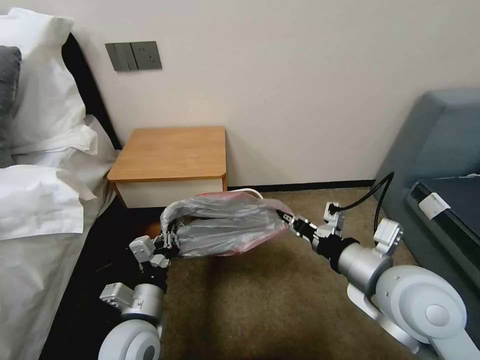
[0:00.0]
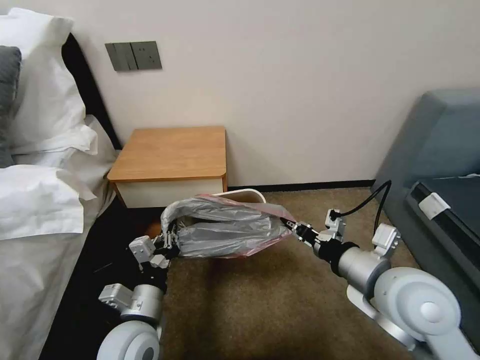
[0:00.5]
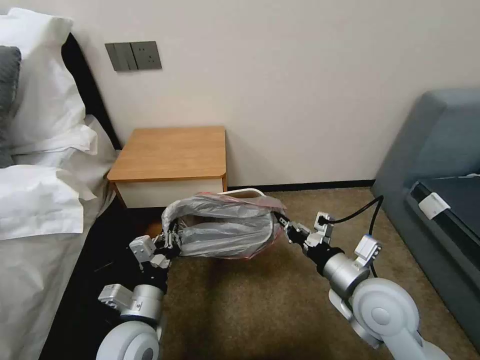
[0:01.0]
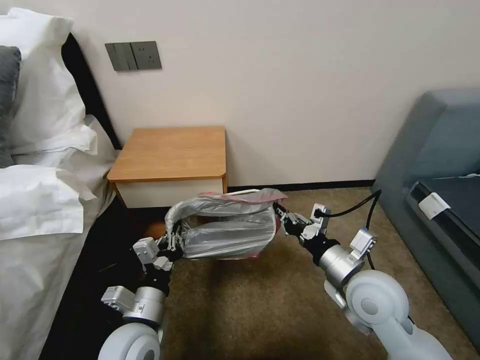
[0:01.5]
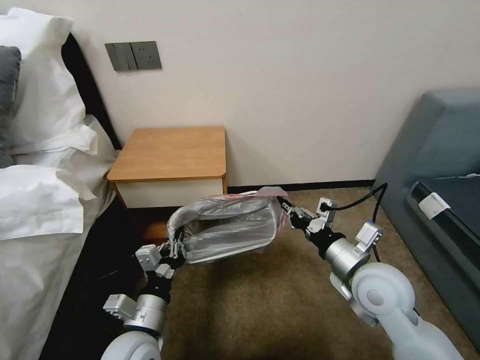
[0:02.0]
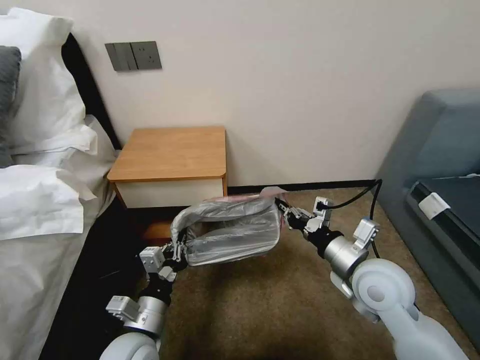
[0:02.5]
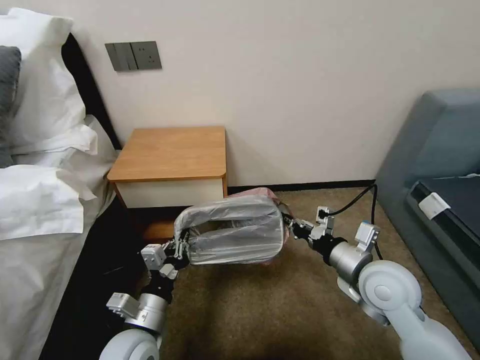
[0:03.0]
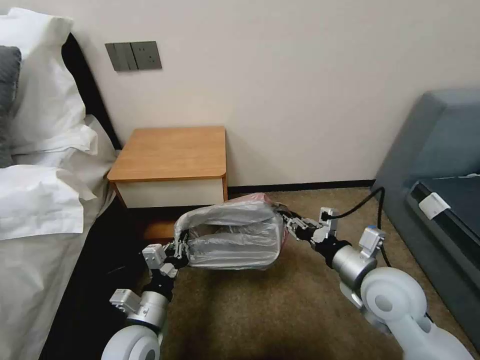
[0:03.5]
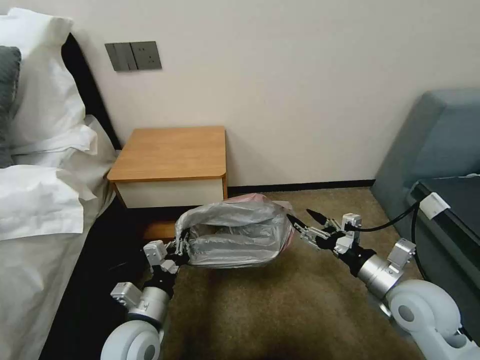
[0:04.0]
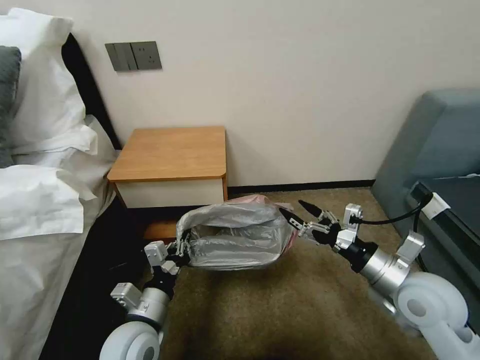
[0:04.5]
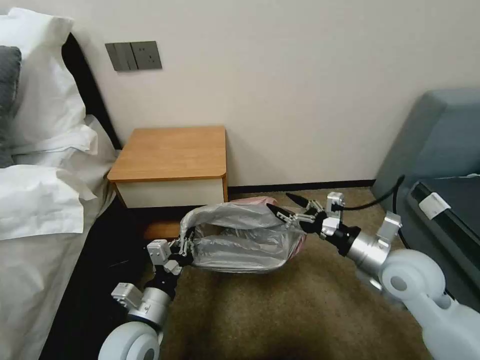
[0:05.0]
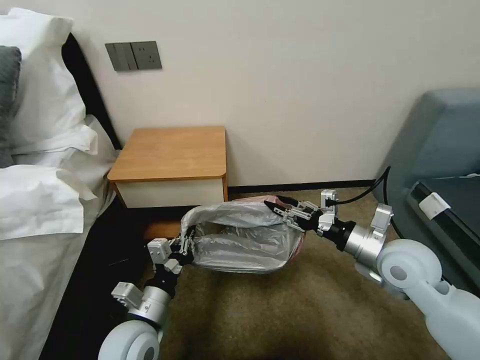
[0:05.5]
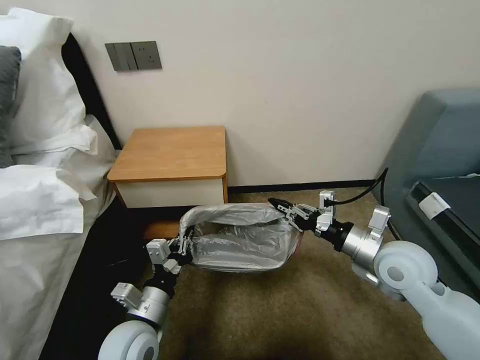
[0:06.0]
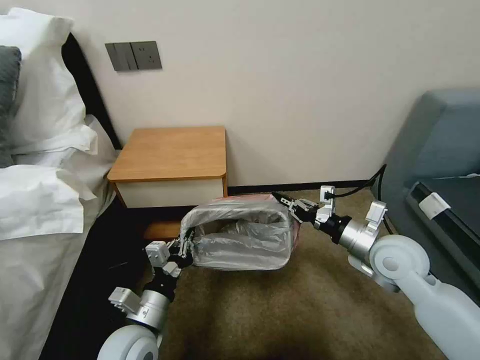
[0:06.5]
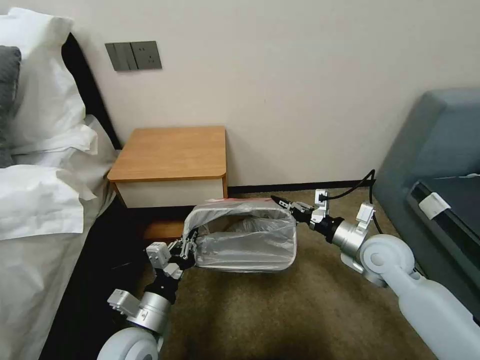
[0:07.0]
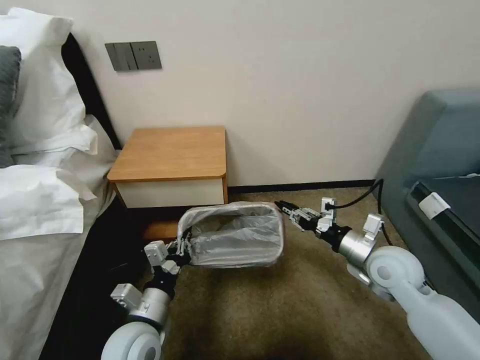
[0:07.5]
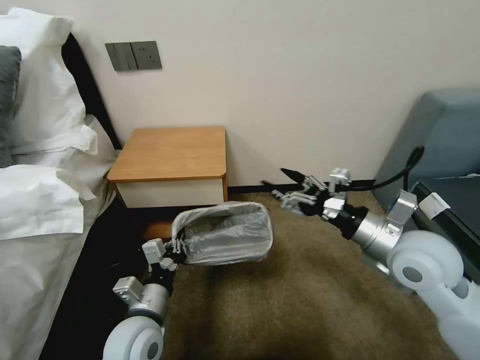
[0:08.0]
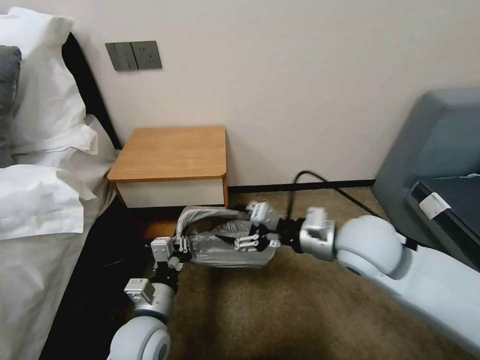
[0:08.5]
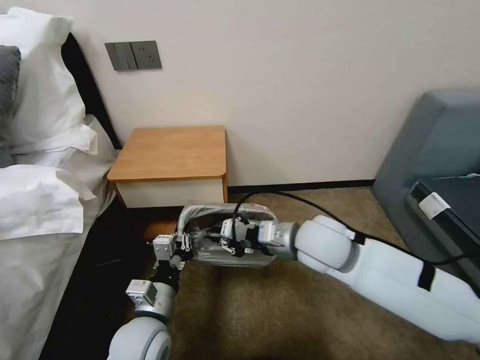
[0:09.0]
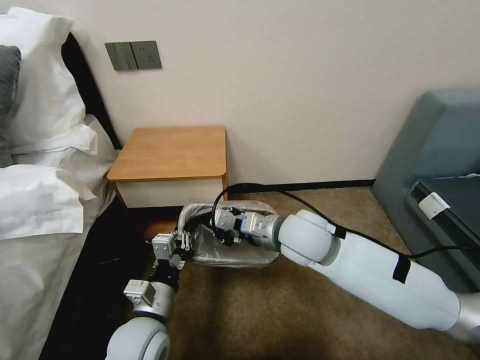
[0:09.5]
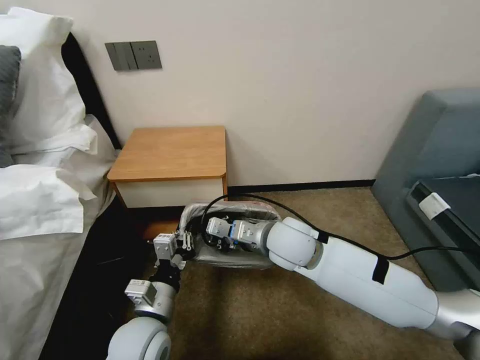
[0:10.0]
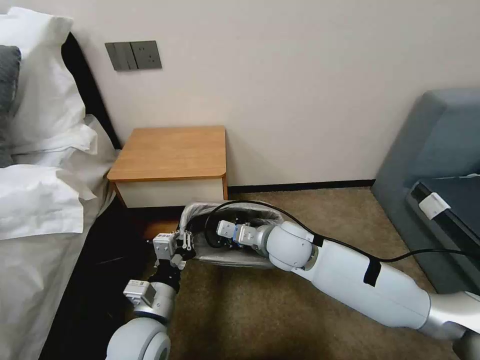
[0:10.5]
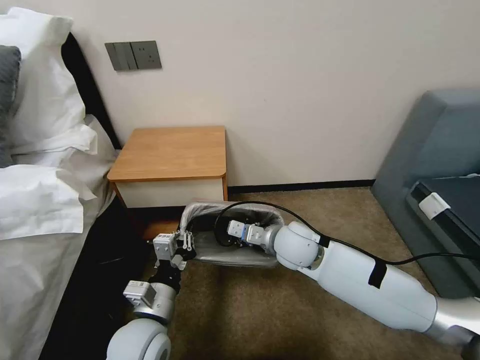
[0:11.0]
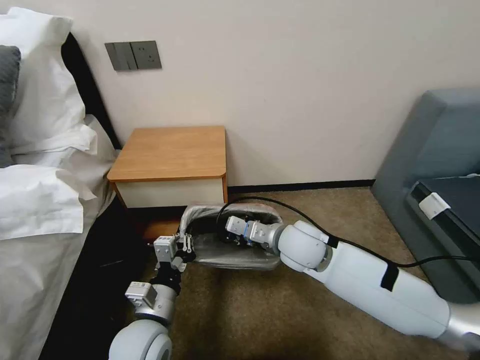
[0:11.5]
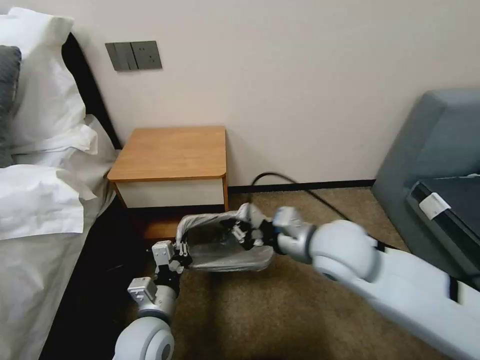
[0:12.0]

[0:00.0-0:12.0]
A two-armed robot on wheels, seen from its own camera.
Task of the whole recording: Pick up the garbage bag from the table and place it over the trash can.
0:00.0 to 0:02.0: The right gripper is displaced downward by some 10 cm.
0:02.0 to 0:04.0: The right gripper is displaced to the right by some 5 cm, and opens its fingers.
0:04.0 to 0:06.0: The right gripper moves forward, about 5 cm, and closes up.
0:06.0 to 0:08.0: The right gripper is displaced upward by about 5 cm, and opens up.
0:08.0 to 0:10.0: The right gripper goes roughly 20 cm to the left, and closes its fingers.
0:10.0 to 0:12.0: The right gripper heads to the right, upward and backward, covering approximately 10 cm.

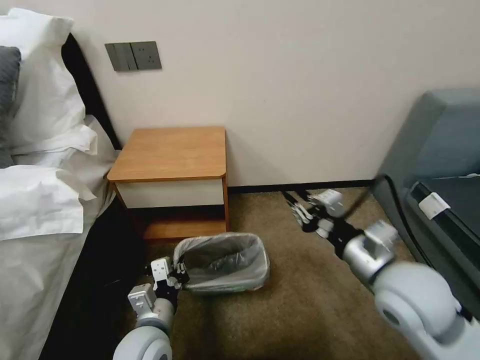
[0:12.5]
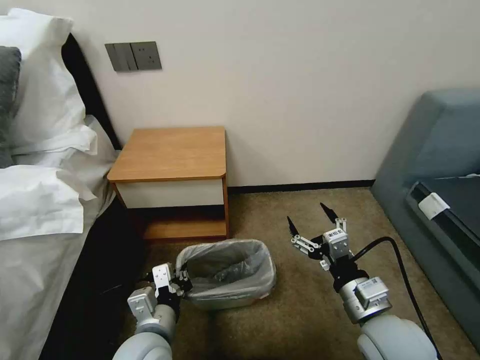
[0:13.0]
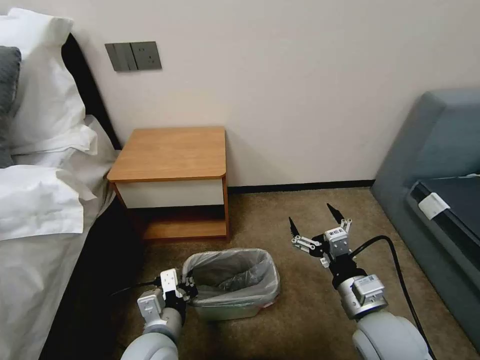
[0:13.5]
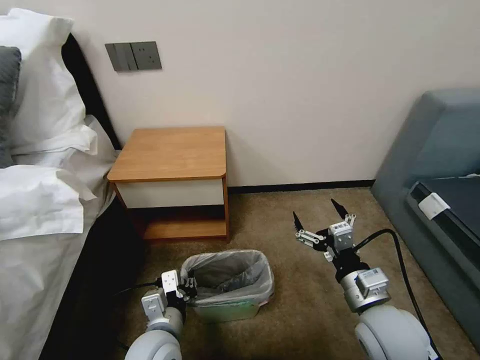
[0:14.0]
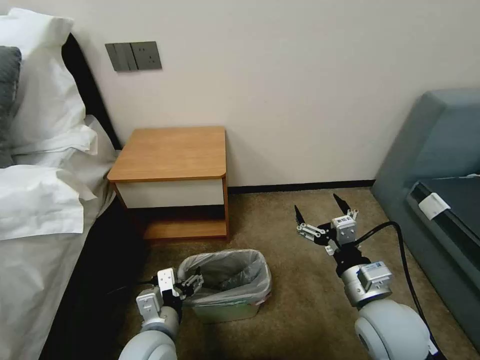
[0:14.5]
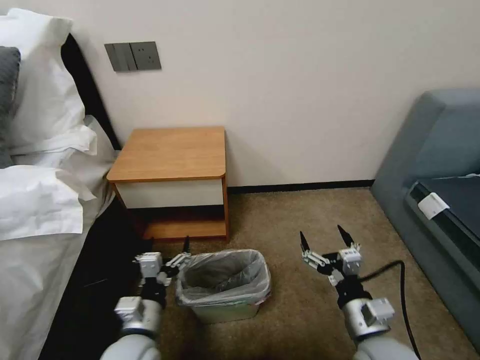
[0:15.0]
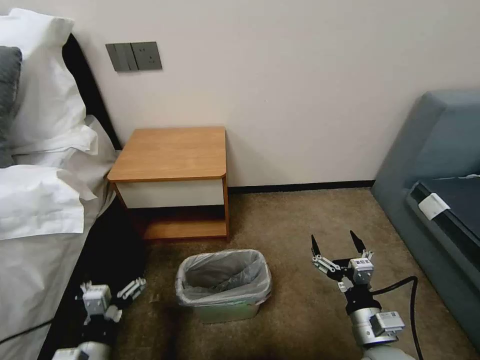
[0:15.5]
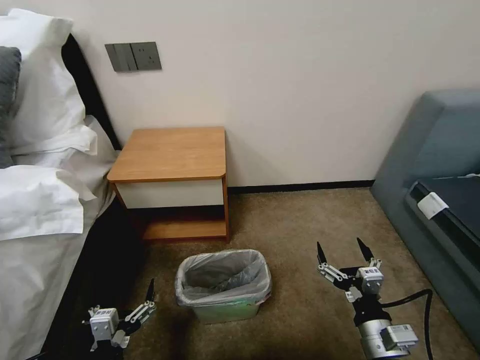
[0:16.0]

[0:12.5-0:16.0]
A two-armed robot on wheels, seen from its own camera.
Task of the whole recording: Pick up the garbage bag from the table and place it over the trash can.
0:12.5 to 0:14.5: The right gripper moves downward, about 5 cm, and opens. The left gripper opens up.
0:14.5 to 0:16.0: The right gripper heads downward and backward, covering approximately 10 cm. Meanwhile the left gripper is displaced backward and to the left by some 15 cm.

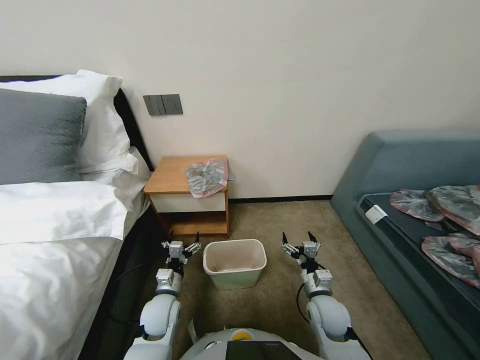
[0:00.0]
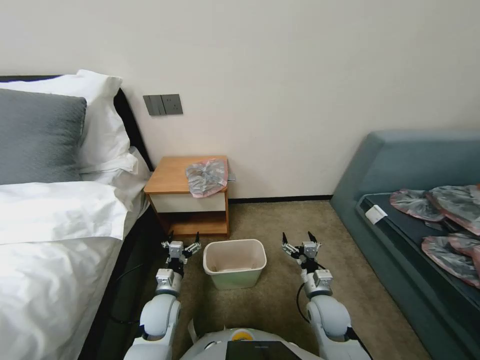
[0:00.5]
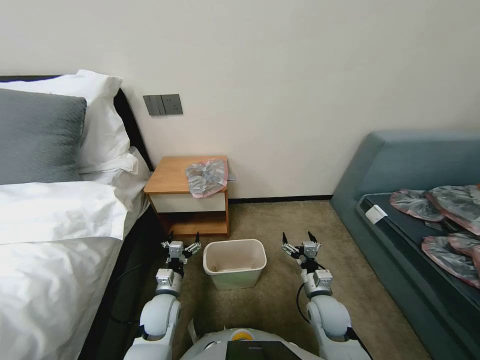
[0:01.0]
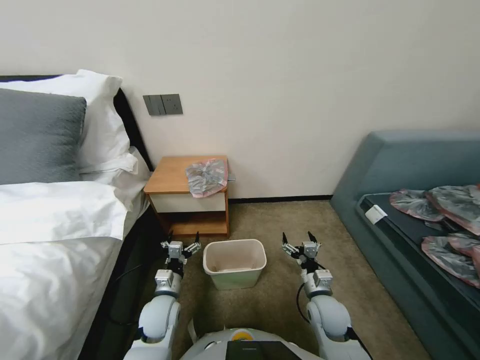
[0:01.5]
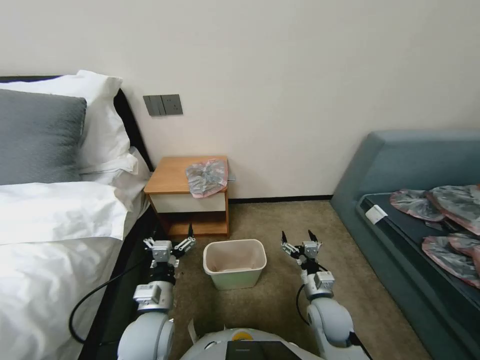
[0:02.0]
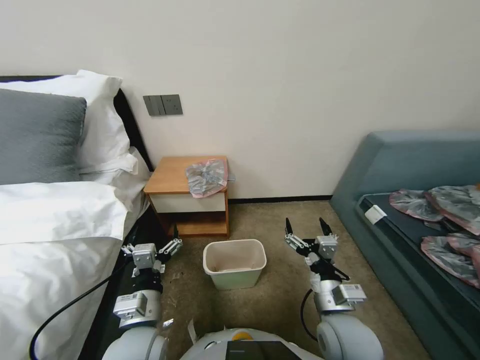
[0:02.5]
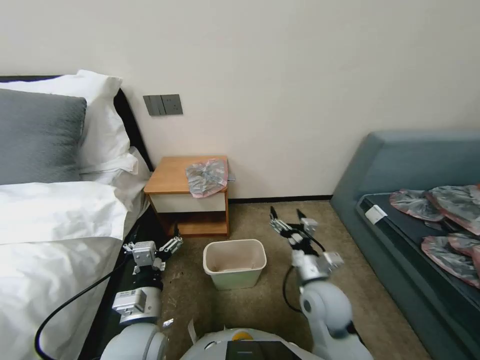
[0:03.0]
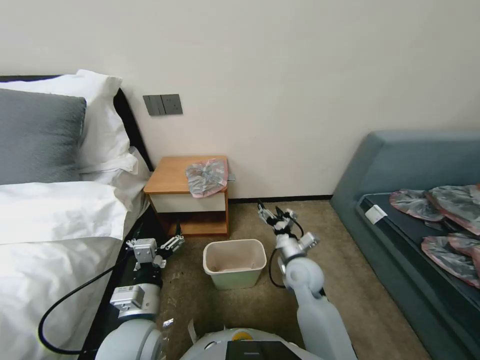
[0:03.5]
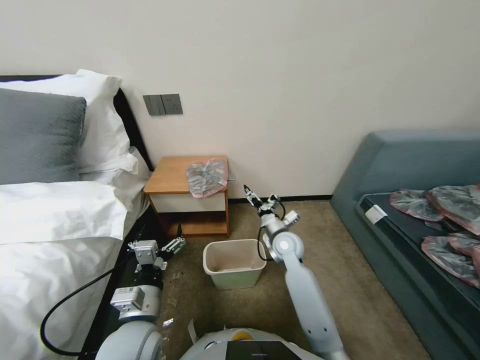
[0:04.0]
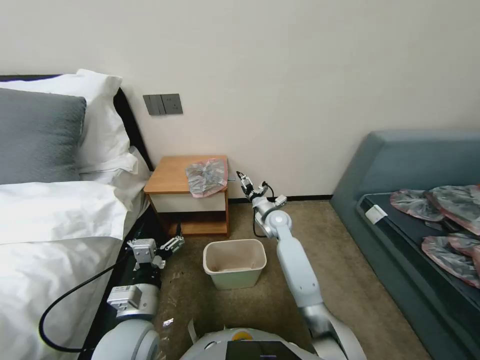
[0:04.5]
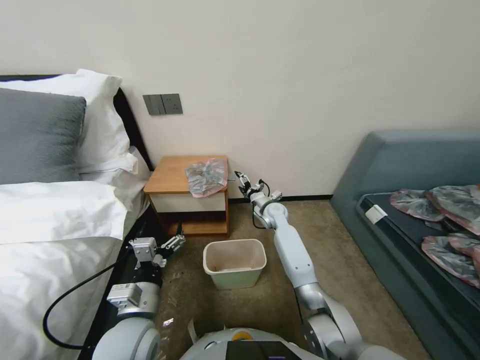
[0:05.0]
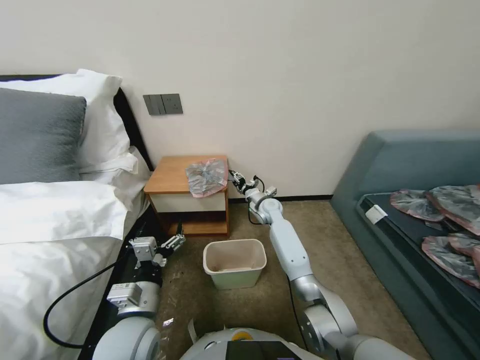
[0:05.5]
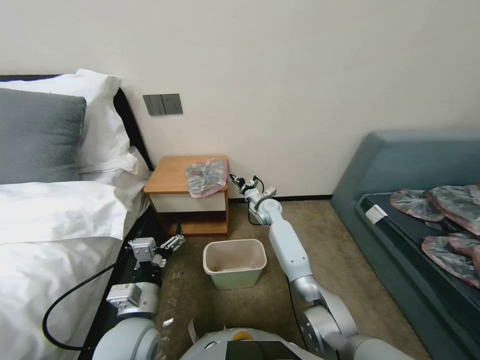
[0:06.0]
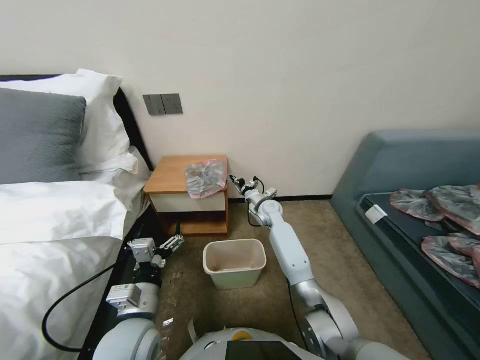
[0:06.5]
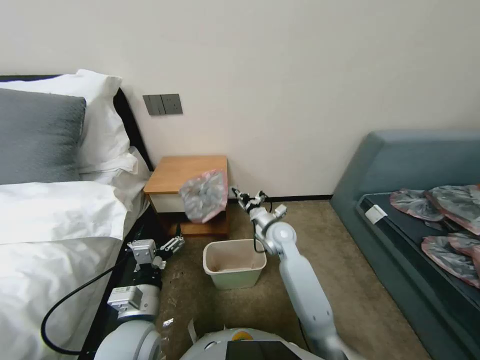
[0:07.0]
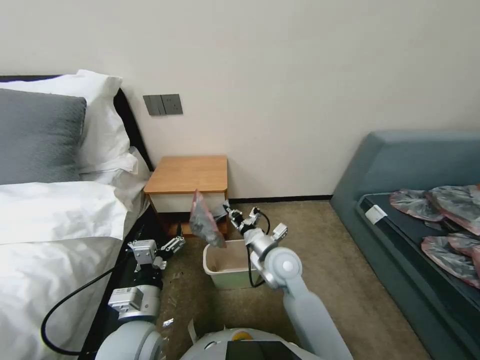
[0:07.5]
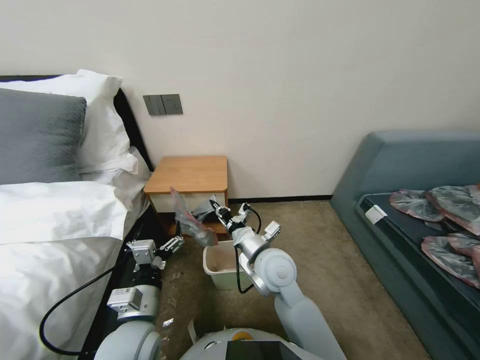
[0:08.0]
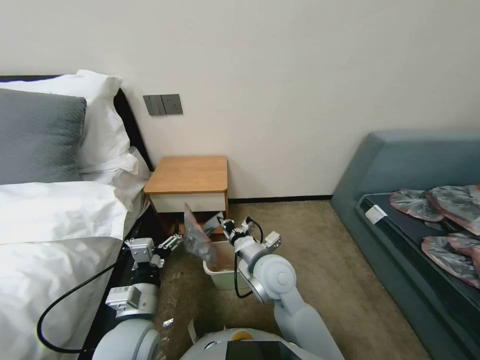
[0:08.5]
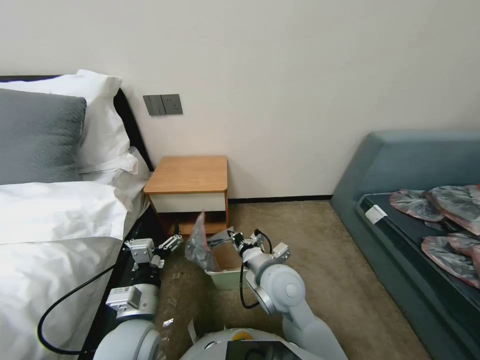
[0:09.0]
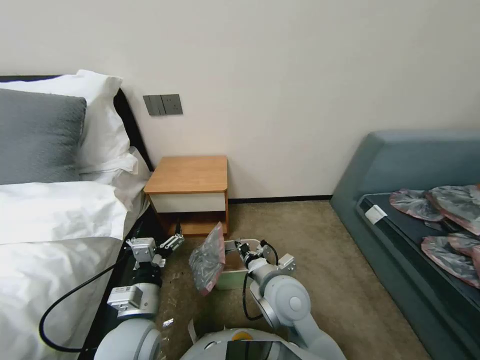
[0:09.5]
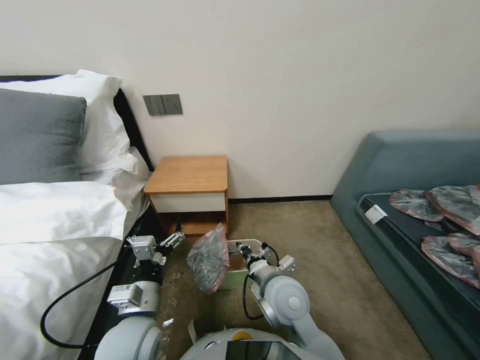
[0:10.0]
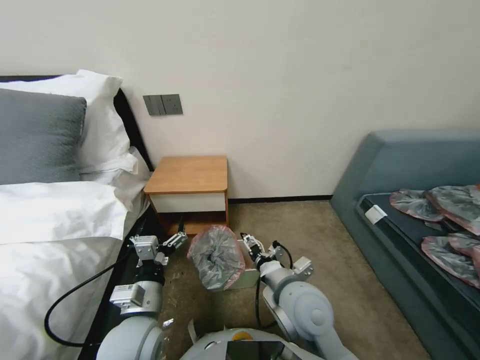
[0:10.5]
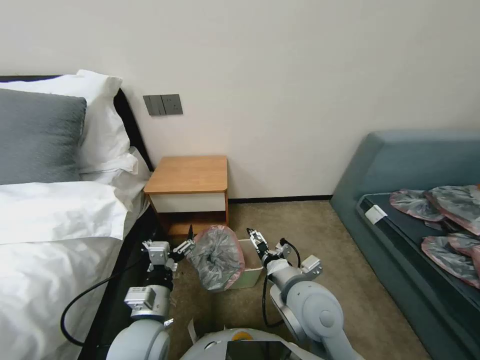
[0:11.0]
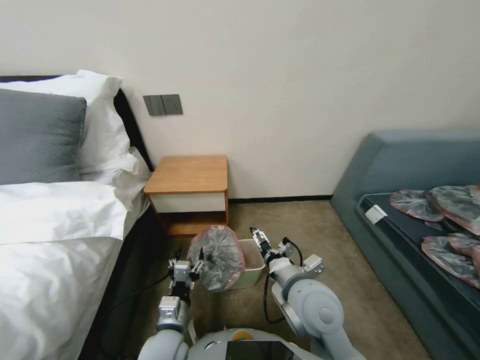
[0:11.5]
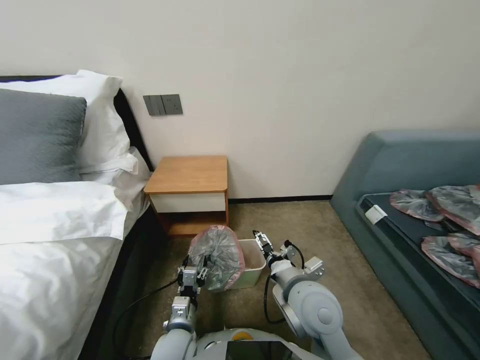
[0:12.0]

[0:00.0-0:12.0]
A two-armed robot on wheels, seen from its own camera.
Task of the whole recording: Pick up the garbage bag from the table and place it over the trash can.
0:02.0 to 0:04.0: The right gripper heads forward, to the left and upward, covering approximately 20 cm. Meanwhile the left gripper goes roughly 5 cm upward.
0:04.0 to 0:06.0: The right gripper heads forward, covering about 15 cm, and closes its fingers.
0:06.0 to 0:08.0: The right gripper shifts approximately 25 cm backward.
0:08.0 to 0:10.0: The right gripper moves backward, about 5 cm.
0:10.0 to 0:12.0: The left gripper is displaced downward by some 15 cm, and closes its fingers; the right gripper moves about 5 cm, and opens.
